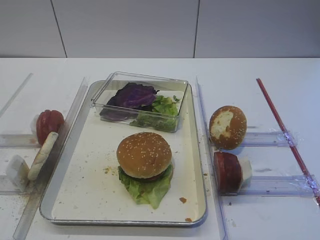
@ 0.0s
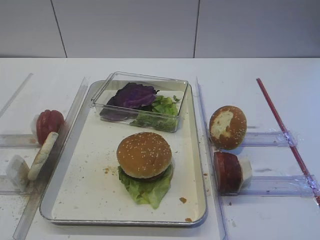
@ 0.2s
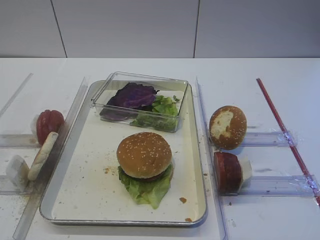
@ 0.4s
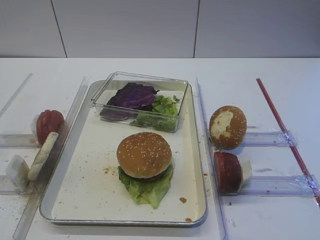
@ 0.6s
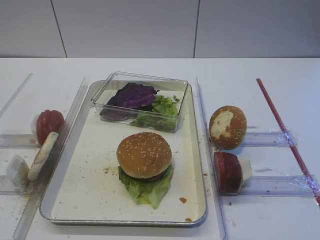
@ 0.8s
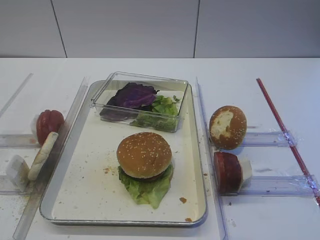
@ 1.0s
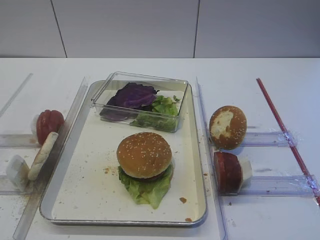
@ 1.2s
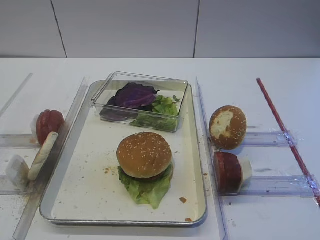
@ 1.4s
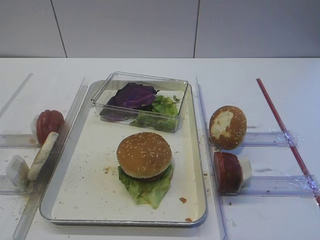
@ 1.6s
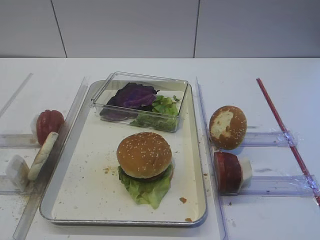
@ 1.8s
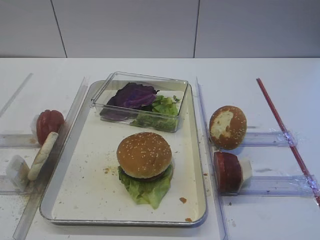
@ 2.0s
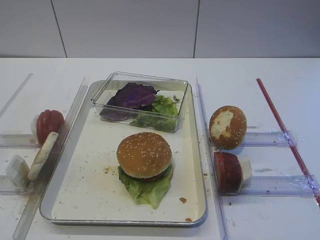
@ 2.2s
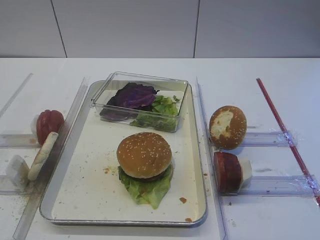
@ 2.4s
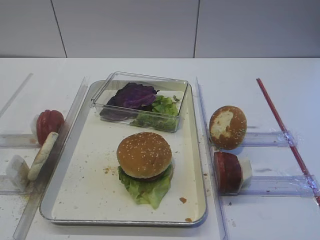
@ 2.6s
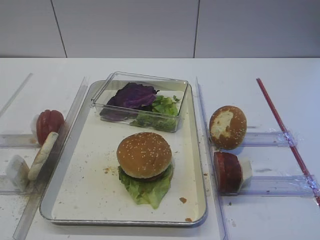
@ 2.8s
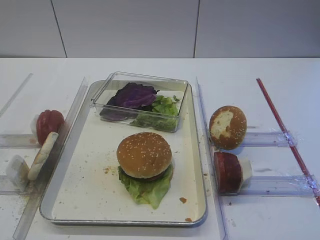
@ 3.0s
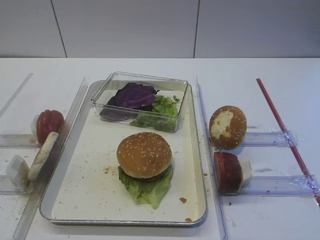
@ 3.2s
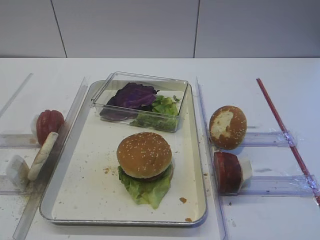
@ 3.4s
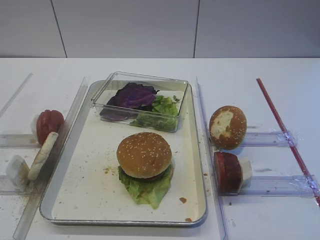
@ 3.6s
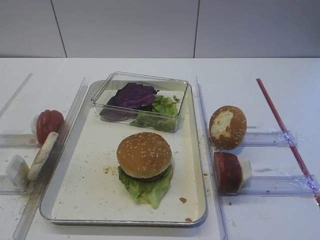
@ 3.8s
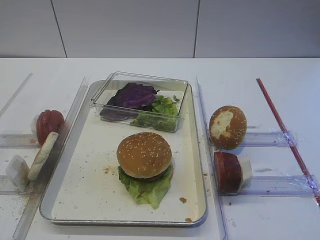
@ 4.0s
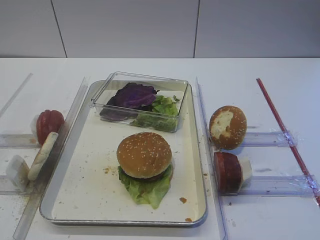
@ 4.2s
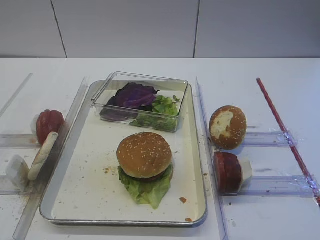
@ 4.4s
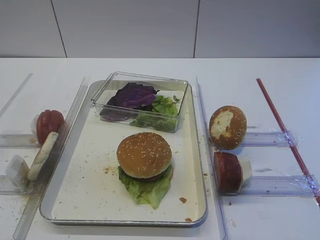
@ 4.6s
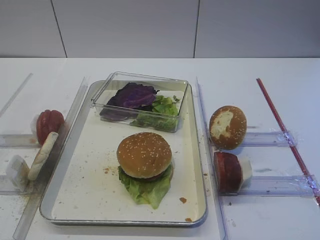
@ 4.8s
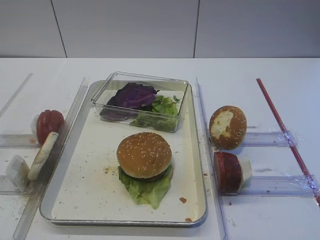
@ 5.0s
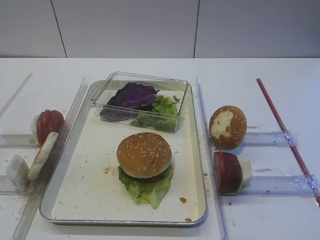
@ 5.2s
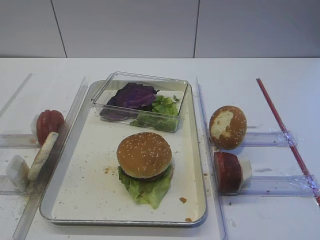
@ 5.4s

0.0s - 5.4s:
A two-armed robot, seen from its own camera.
0.0s - 5.4s: Neither gripper changes place.

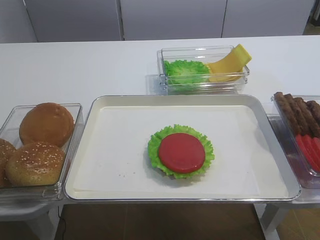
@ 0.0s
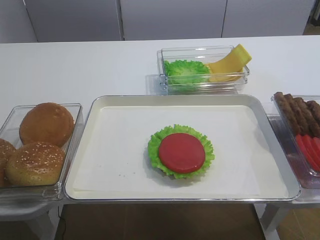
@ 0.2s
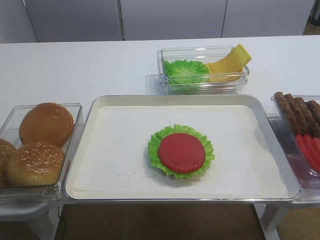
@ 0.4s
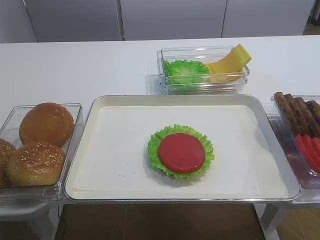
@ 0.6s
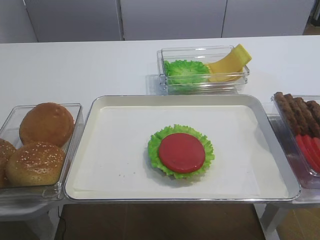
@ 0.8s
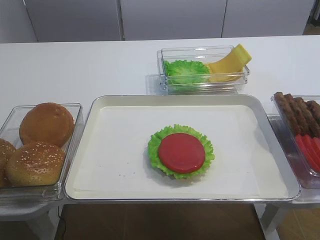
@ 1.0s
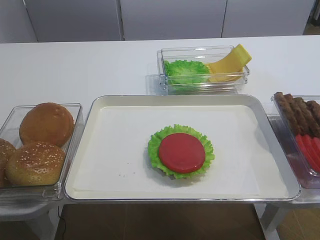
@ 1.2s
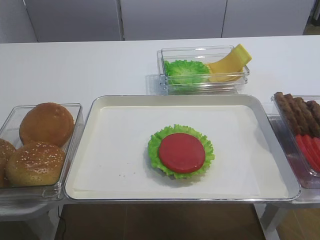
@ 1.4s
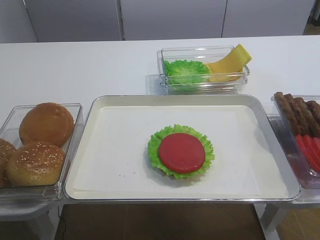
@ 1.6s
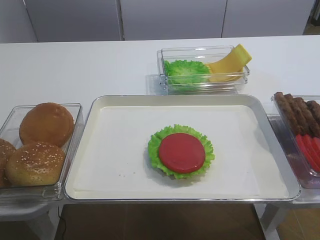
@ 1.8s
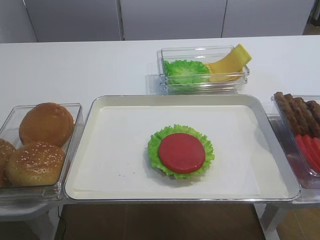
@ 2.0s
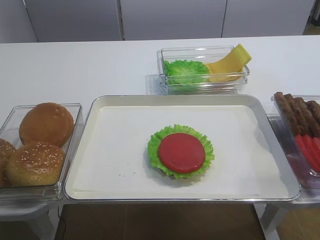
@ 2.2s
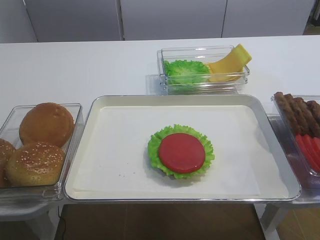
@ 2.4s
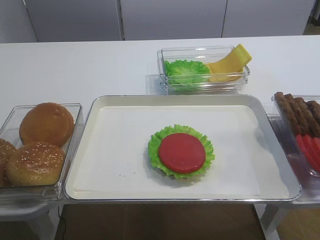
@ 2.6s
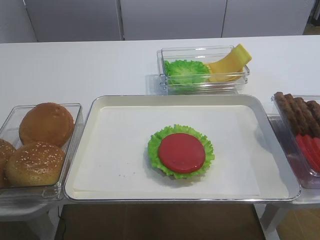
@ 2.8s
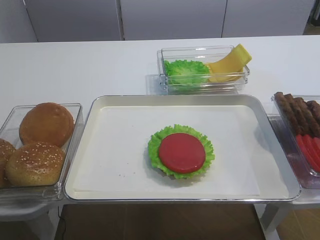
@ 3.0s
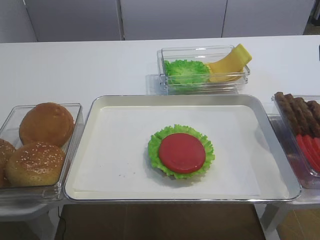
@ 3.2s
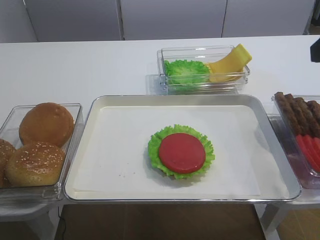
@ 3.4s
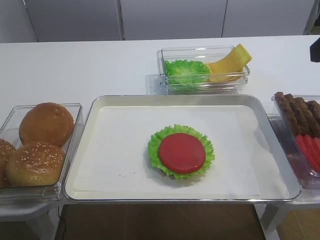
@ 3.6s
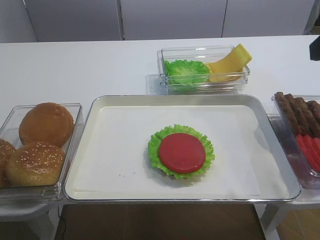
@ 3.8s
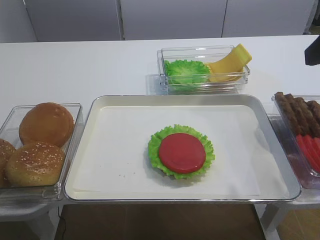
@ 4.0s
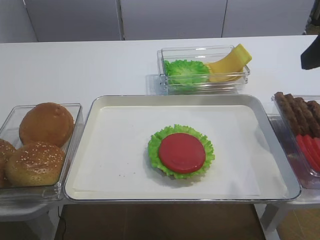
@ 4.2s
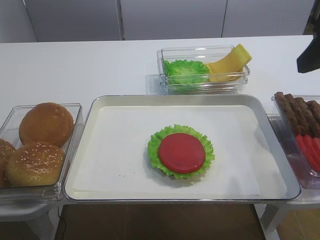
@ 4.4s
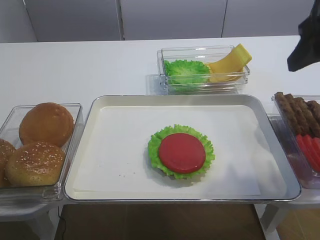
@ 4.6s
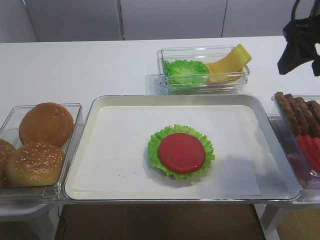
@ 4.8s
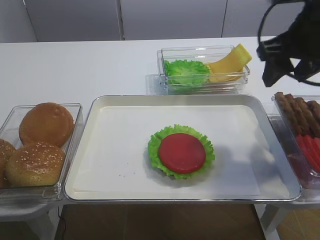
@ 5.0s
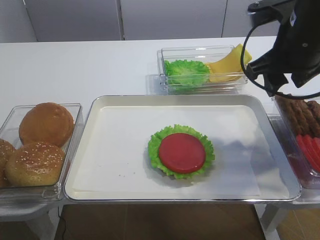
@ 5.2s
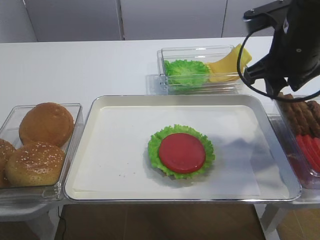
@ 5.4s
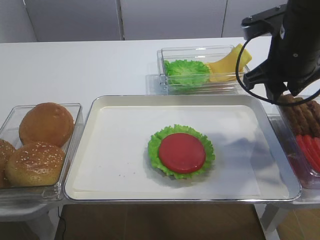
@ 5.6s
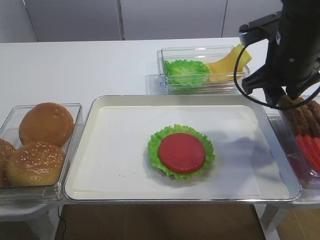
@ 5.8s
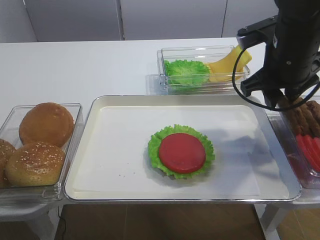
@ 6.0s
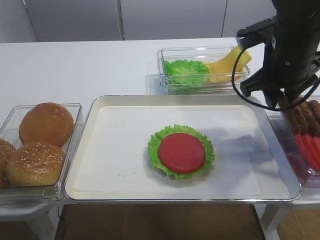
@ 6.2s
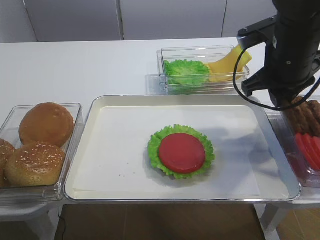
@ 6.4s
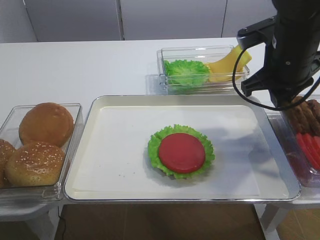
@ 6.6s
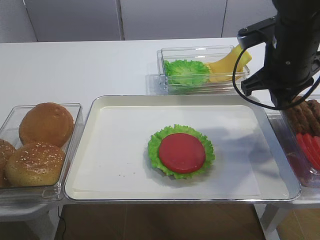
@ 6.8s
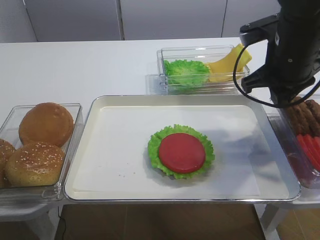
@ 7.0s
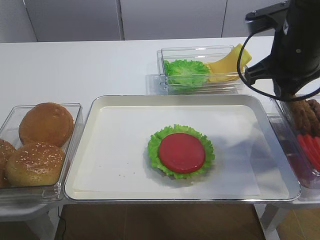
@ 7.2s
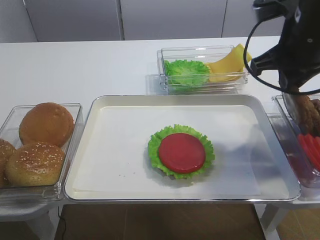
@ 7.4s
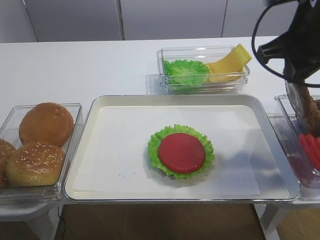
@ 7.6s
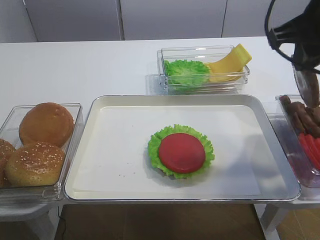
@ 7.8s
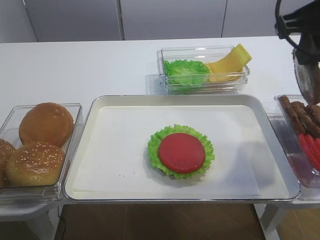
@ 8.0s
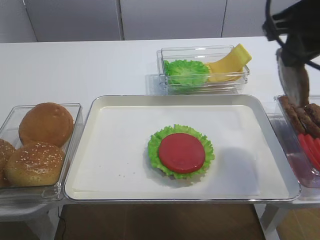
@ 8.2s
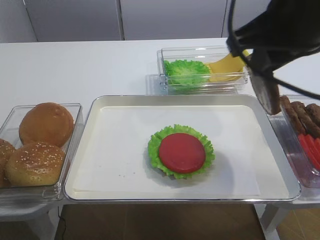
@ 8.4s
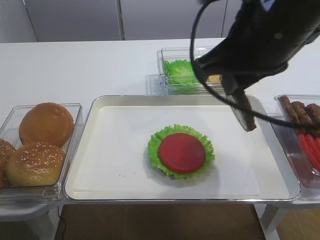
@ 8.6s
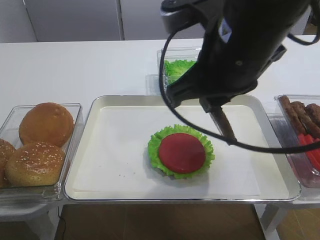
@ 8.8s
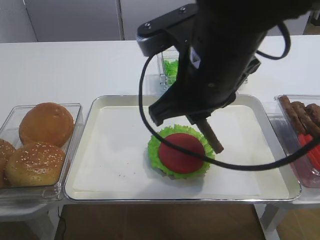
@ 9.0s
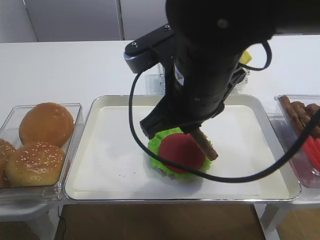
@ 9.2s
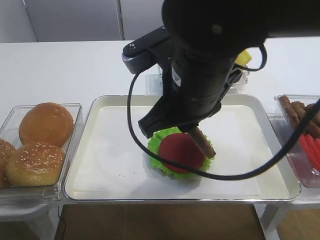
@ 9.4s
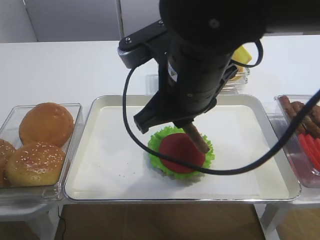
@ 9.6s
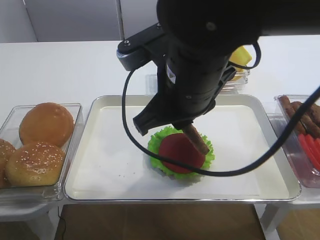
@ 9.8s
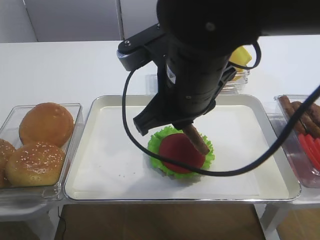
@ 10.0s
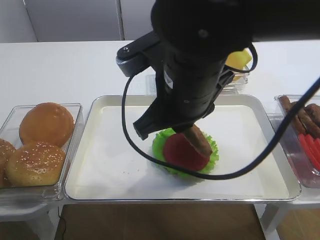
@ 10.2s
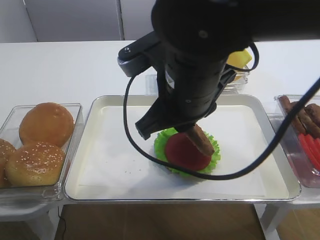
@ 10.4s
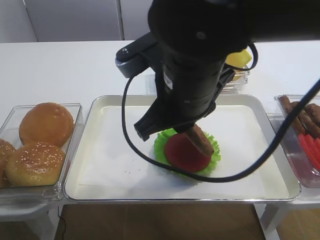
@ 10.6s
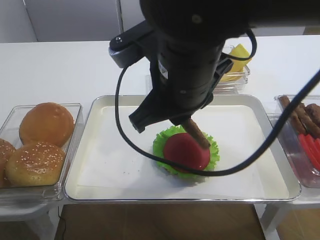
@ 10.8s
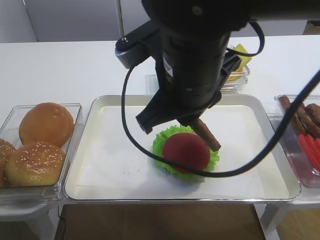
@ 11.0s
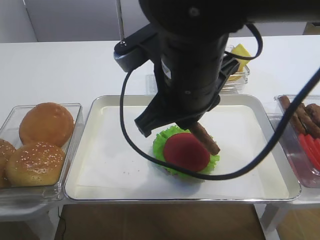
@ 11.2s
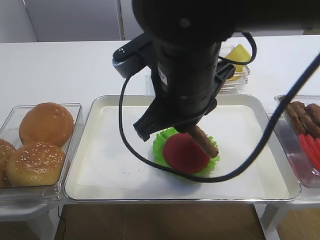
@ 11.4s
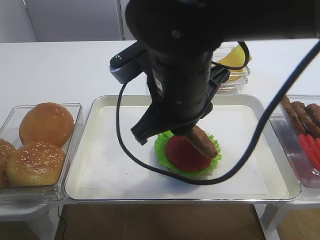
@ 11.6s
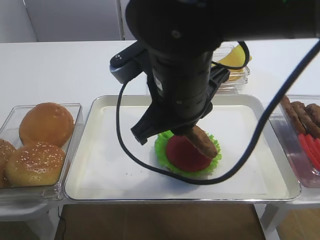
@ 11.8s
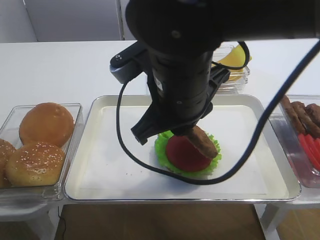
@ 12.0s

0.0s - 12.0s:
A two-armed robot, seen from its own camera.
Step, 0.0s - 7.6s: Pick up the cutlet with the right gripper.
3.0s - 4.4s: The right gripper goes approximately 5 cm forward.
4.4s - 6.0s: The right gripper goes approximately 15 cm forward, downward and to the left, and closes.
6.0s - 7.6s: The right gripper shifts about 5 cm upward, and closes its fingers.
7.6s - 9.0s: The right gripper travels to the left and backward by roughly 15 cm.
9.0s - 12.0s: The grippers stay close to where they were, moving slightly.

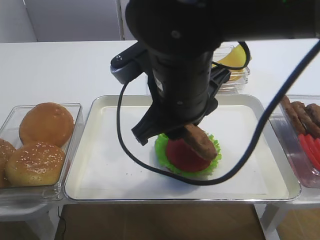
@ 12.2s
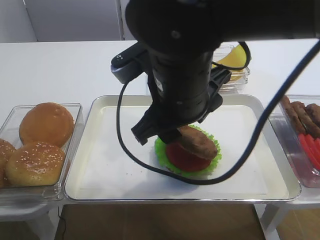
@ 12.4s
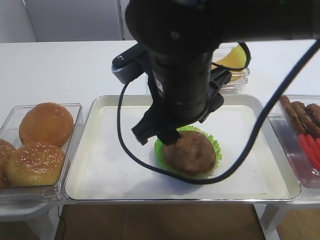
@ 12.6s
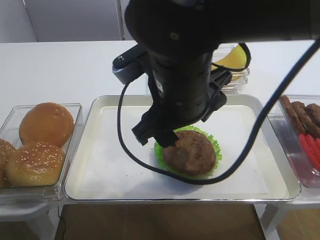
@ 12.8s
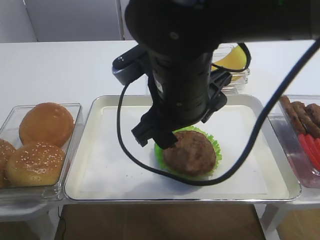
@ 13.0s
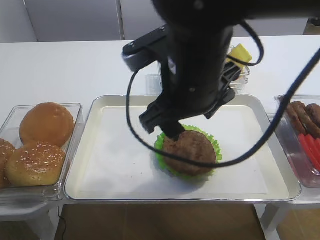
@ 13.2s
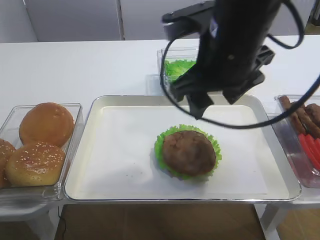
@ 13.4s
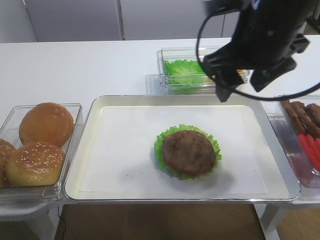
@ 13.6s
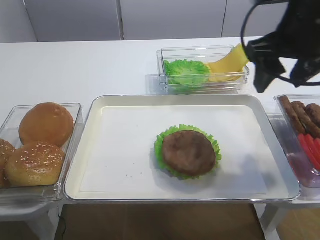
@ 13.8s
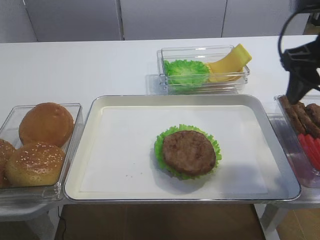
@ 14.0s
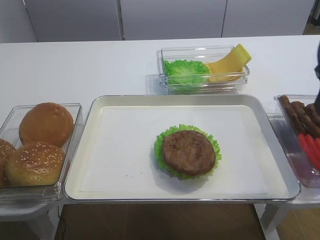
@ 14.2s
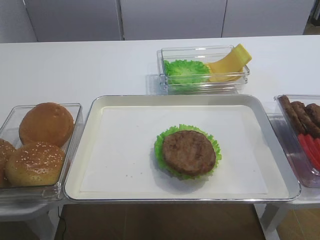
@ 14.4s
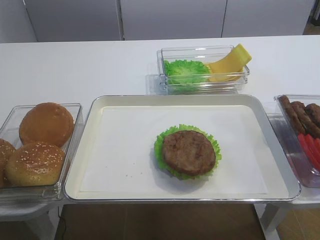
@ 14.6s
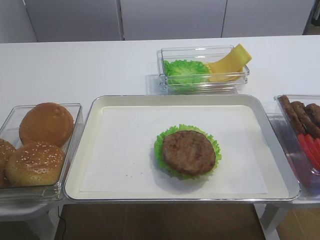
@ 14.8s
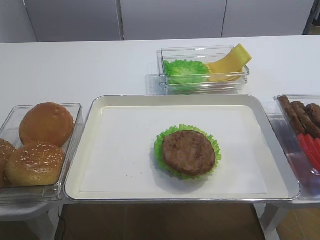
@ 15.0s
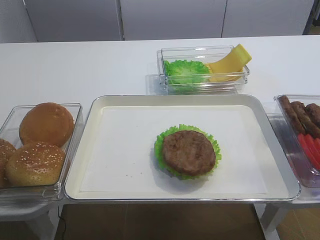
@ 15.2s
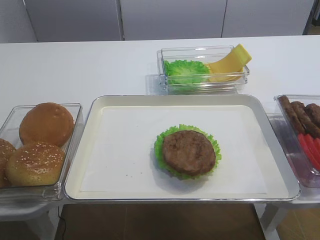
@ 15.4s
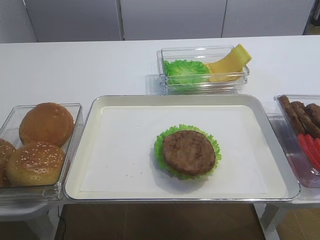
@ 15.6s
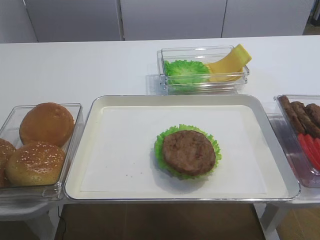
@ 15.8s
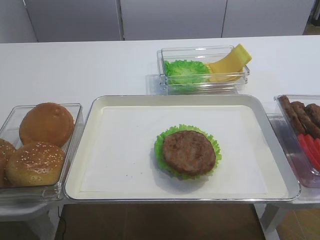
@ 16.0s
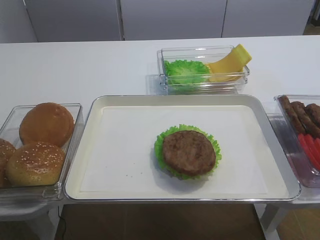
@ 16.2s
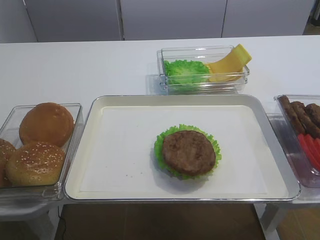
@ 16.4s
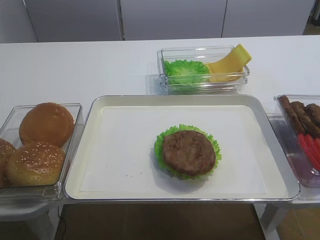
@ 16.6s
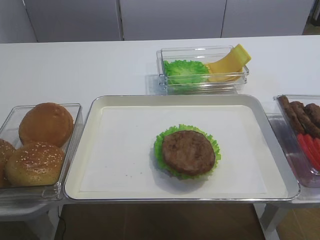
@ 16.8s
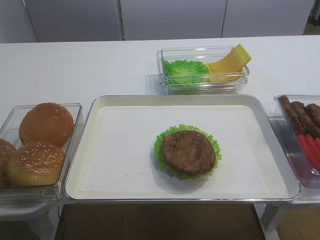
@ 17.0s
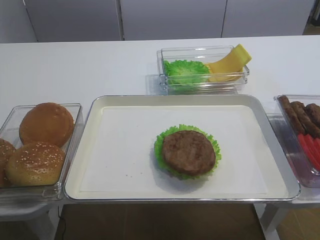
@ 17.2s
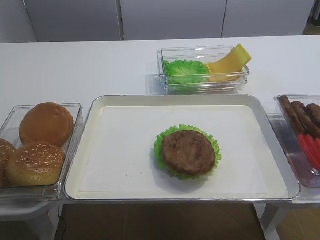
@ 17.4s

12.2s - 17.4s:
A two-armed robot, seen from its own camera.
12.2s - 14.0s: The right gripper travels to the right by some 20 cm, and opens up.
14.0s - 15.6s: The right gripper moves backward, about 30 cm.
